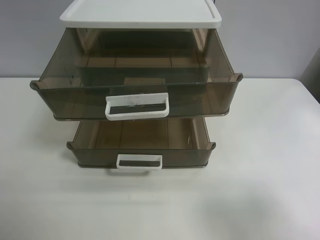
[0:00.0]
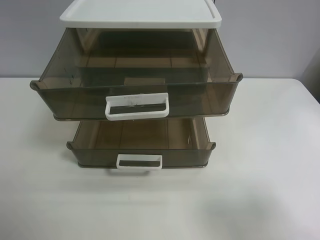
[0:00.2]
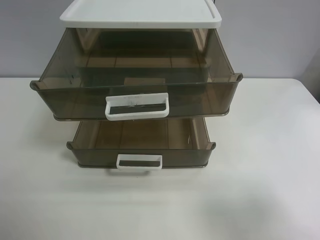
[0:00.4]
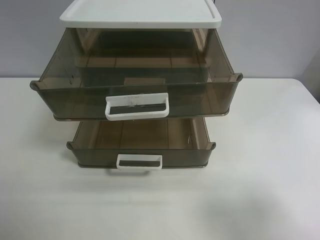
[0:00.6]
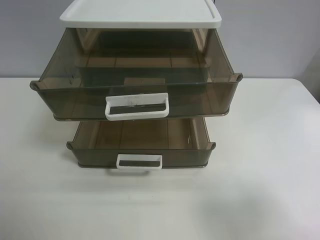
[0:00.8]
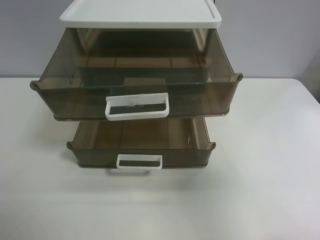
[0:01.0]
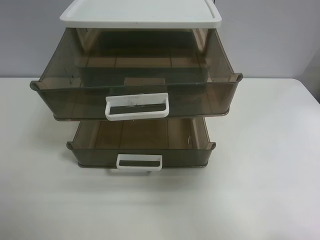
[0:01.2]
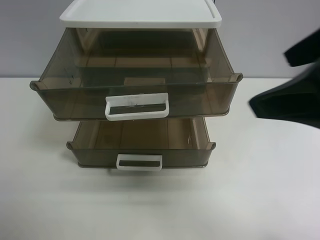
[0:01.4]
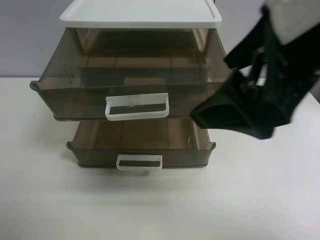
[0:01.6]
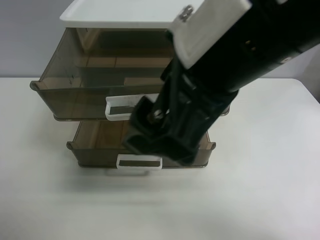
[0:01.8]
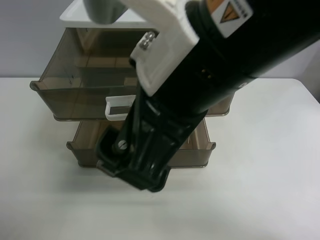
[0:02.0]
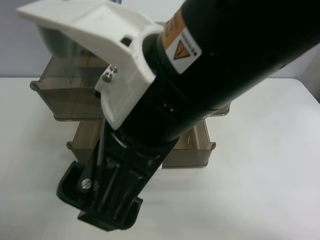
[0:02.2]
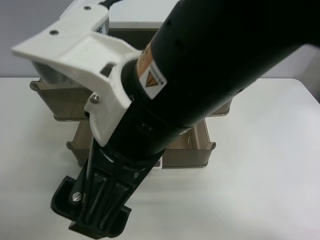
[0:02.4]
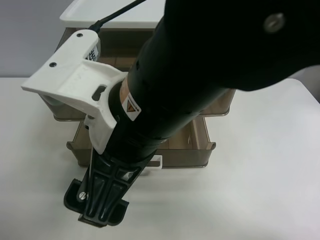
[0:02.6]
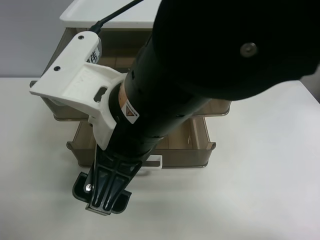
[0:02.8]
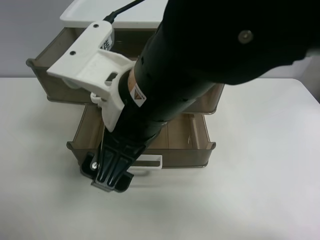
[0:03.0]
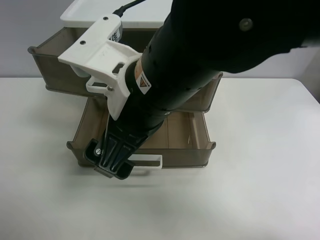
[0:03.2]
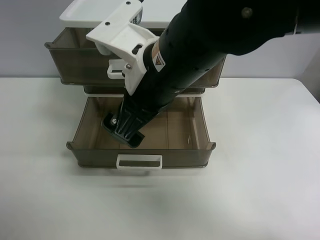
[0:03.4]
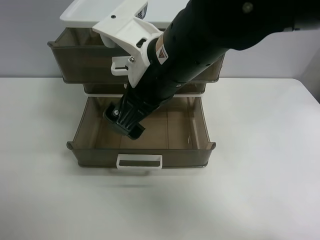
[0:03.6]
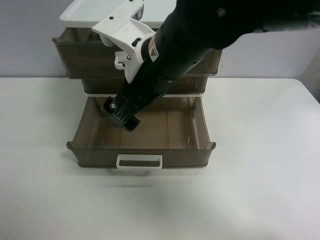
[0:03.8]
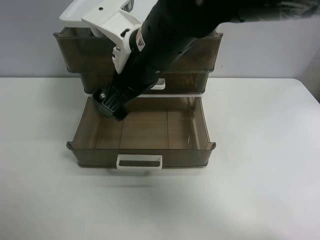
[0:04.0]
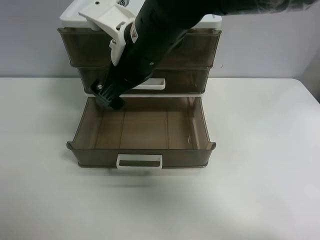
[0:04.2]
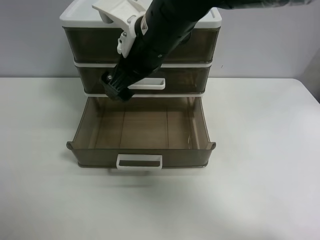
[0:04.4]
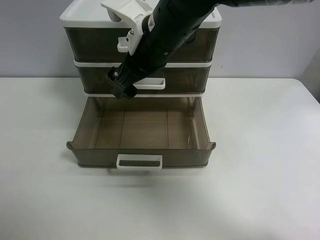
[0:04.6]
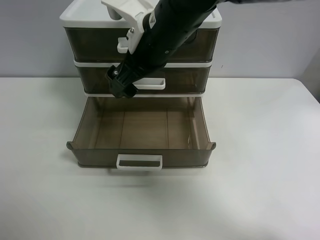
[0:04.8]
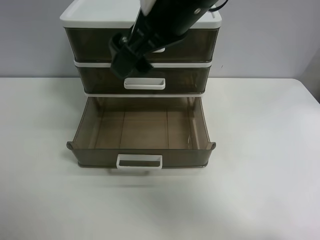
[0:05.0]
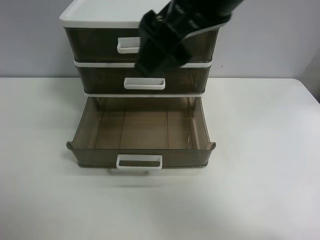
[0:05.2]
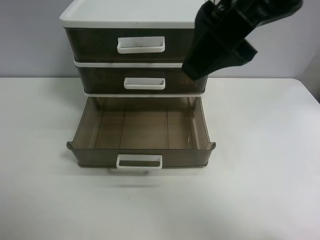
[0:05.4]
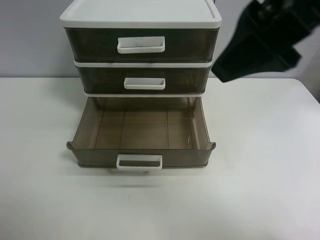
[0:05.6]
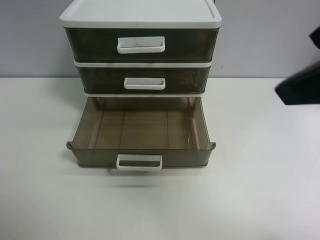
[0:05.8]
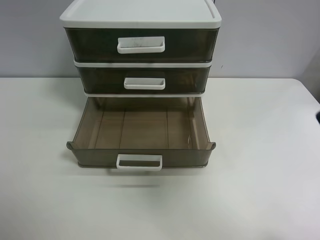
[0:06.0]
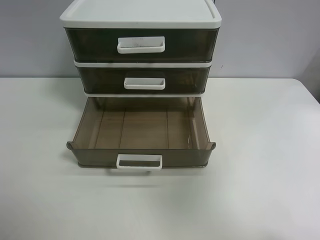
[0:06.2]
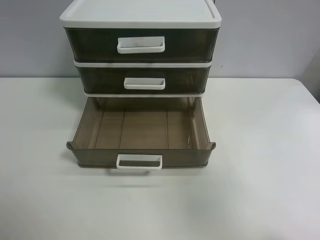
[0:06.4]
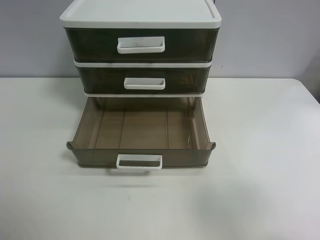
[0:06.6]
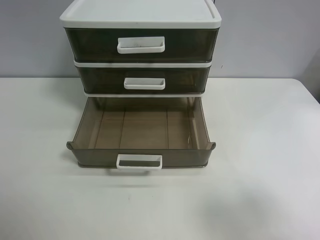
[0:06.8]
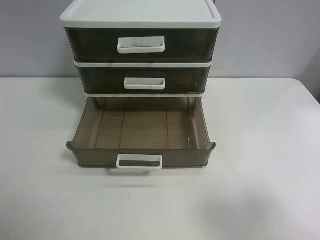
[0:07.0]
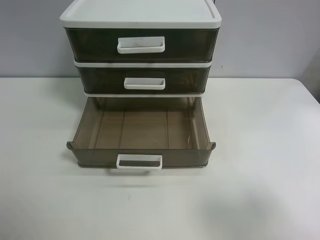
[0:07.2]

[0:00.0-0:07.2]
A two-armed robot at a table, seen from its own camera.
Task of the whole recording: close the top drawer.
Step, 0:00.0 to 0:02.8: Use the right gripper to touch the topmost layer of the storage cabinet.
Step, 0:03.0 to 0:04.8: Push the top drawer closed.
0:00.0 to 0:01.4: The right gripper travels to the left, forward and upward by some 20 cm.
0:01.4 to 0:02.8: The right gripper heads to the left and downward, covering some 20 cm.
0:02.8 to 0:04.4: The right gripper heads forward, covering roughly 15 cm.
0:04.4 to 0:05.8: The right gripper goes some 30 cm to the right, backward and upward.
0:05.8 to 0:07.2: The right gripper heads downward, backward and to the right, covering about 20 cm.

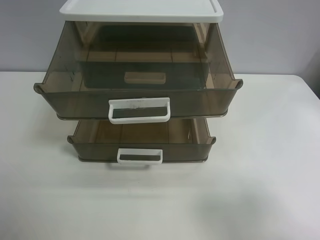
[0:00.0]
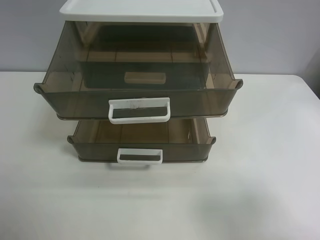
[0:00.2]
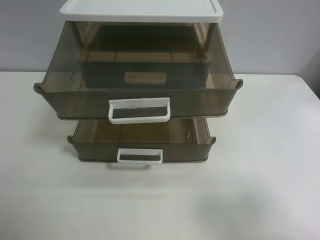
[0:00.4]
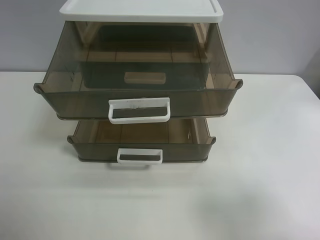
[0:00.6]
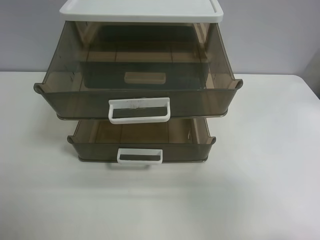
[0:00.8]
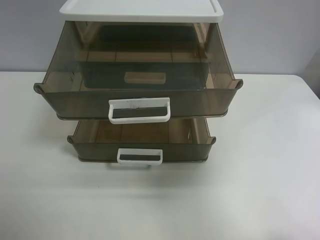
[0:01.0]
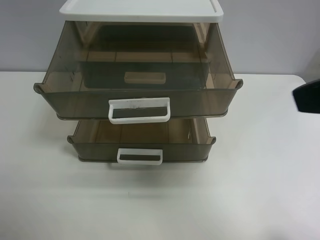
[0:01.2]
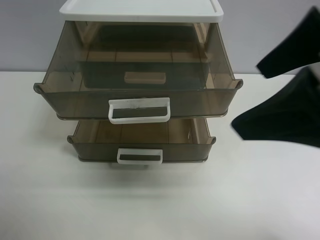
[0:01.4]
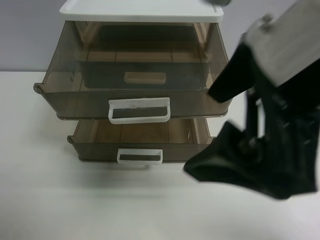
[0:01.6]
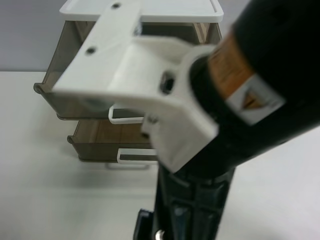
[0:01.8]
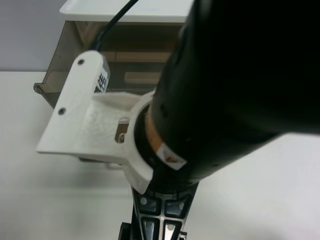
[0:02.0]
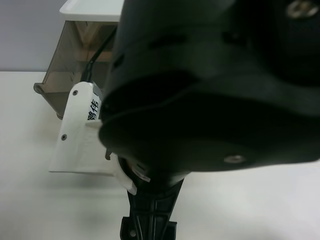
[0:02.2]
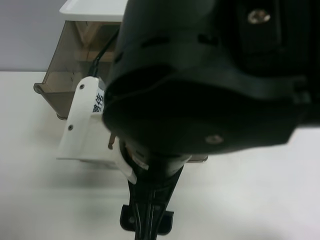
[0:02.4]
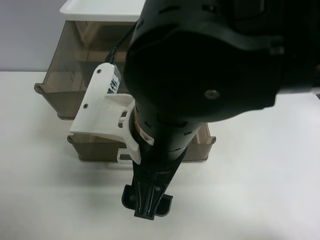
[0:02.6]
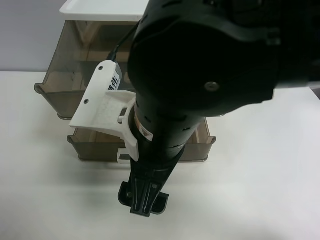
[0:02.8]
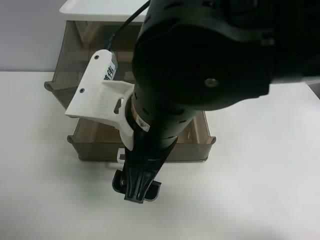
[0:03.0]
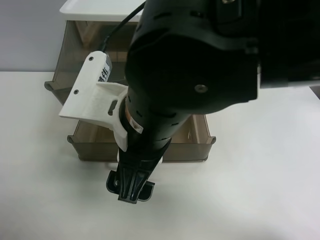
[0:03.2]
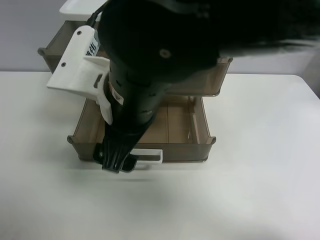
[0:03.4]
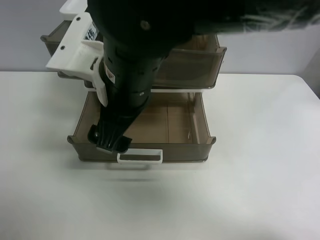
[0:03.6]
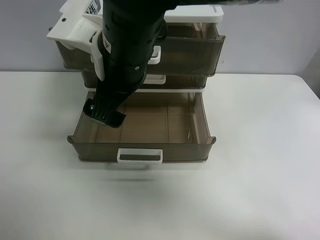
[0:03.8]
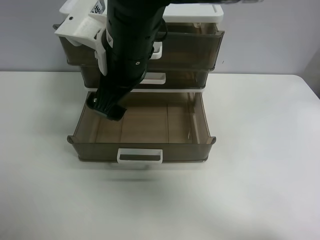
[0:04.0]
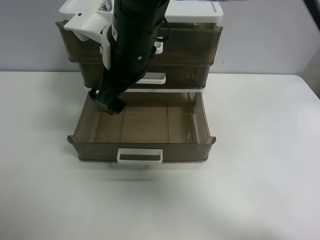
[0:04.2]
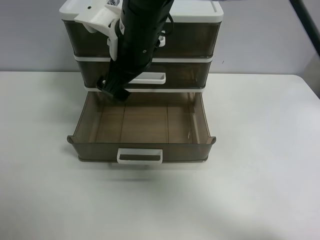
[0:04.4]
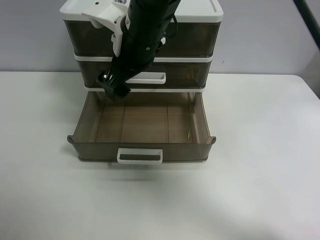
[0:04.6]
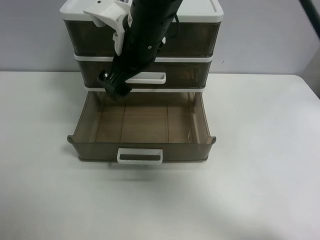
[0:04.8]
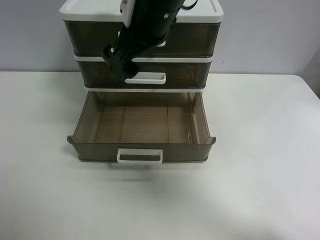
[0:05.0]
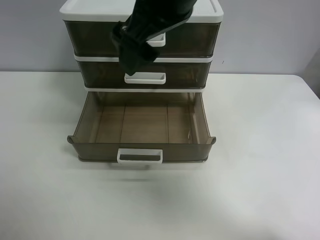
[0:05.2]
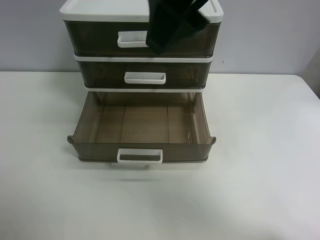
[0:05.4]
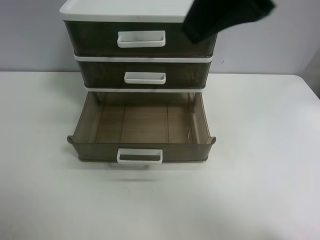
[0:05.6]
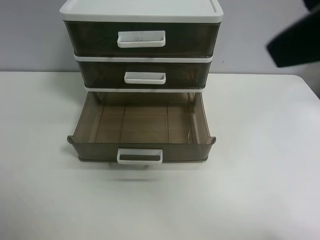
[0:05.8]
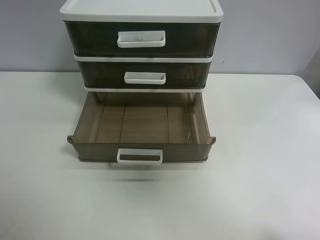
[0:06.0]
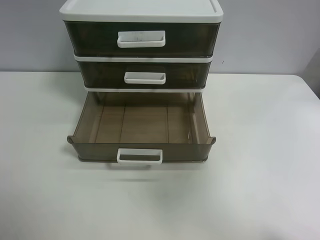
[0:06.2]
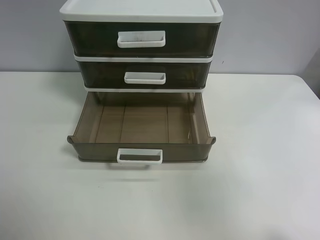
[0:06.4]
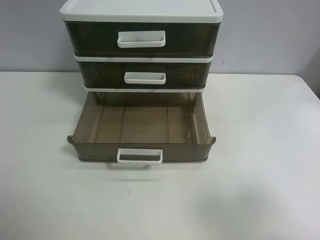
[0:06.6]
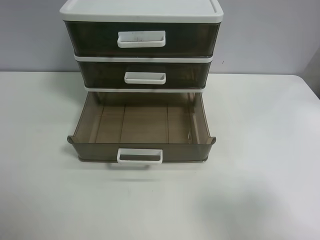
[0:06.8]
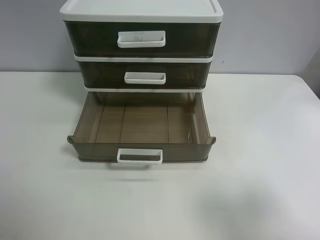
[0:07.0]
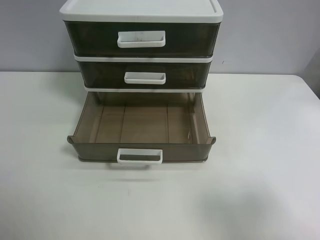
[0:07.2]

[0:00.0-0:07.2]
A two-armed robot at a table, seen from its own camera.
Task of the whole recording: close the top drawer.
Step, 0:00.0 to 0:02.8: Use the right gripper to touch the topmost layer of the storage cabinet.
Step, 0:03.0 to 0:04.8: Push the top drawer closed.
0:00.0 to 0:01.4: The right gripper moves to the left, forward and upward, roughly 20 cm.
0:01.4 to 0:02.8: The right gripper travels to the left and downward by about 20 cm.
0:02.8 to 0:04.4: The right gripper travels forward by some 15 cm.
0:04.4 to 0:05.8: The right gripper moves to the right, backward and upward, about 35 cm.
0:05.8 to 0:07.2: The right gripper is displaced downward, to the right and backward by roughly 20 cm.
